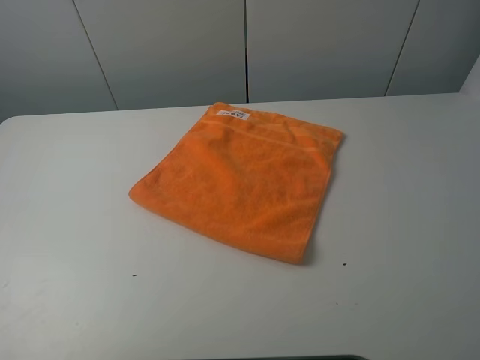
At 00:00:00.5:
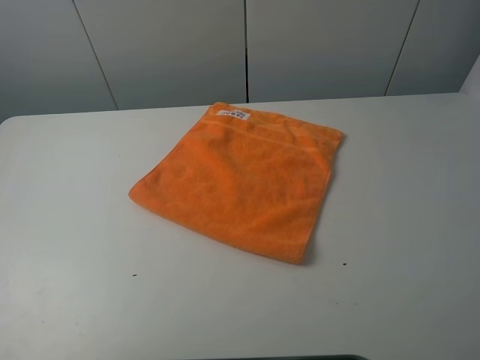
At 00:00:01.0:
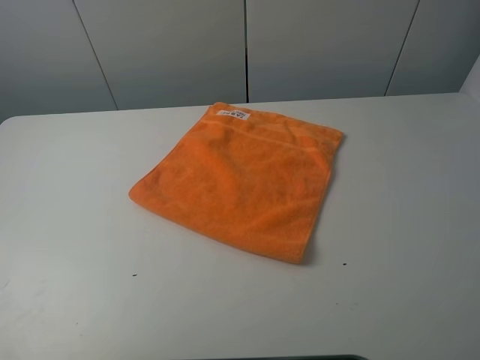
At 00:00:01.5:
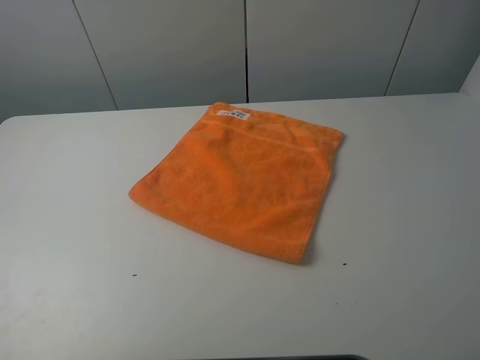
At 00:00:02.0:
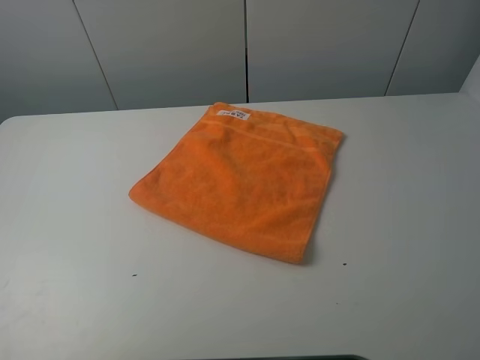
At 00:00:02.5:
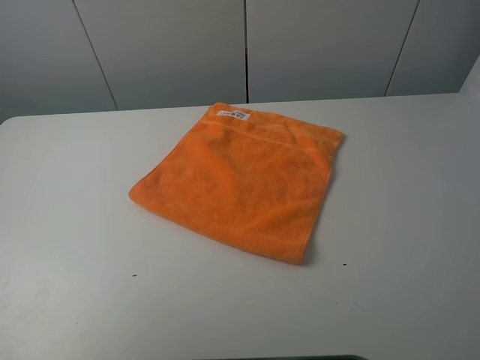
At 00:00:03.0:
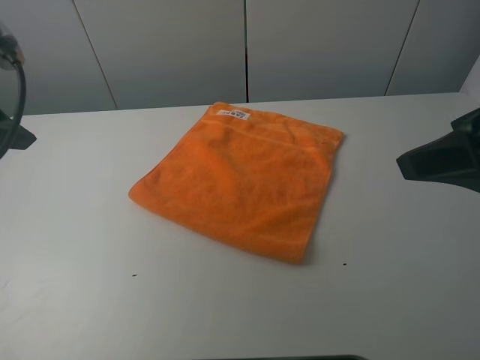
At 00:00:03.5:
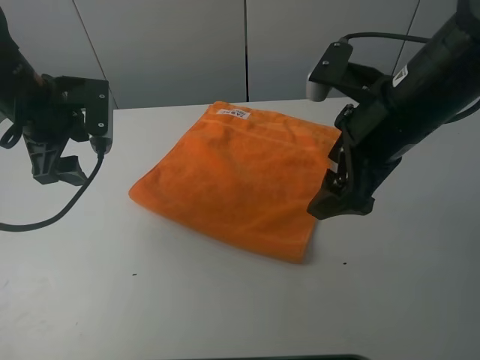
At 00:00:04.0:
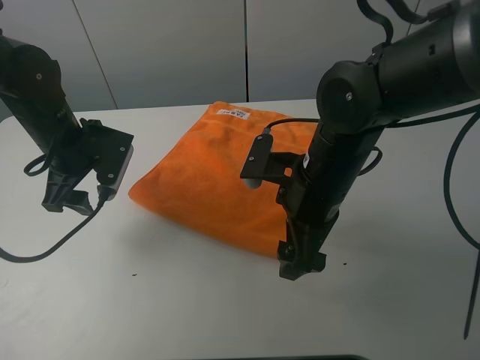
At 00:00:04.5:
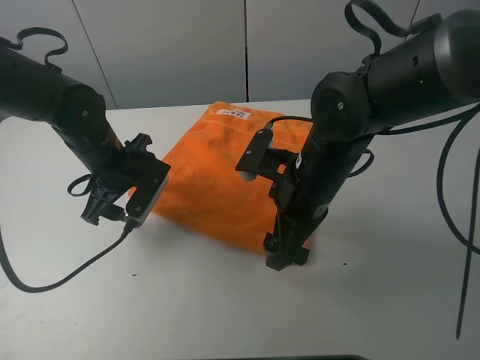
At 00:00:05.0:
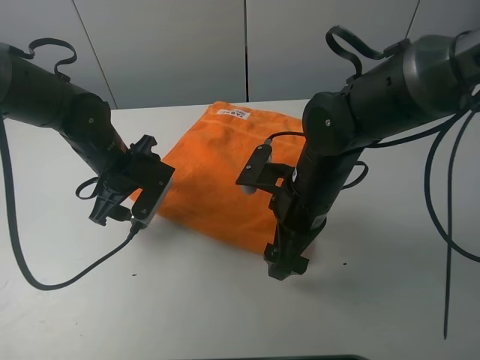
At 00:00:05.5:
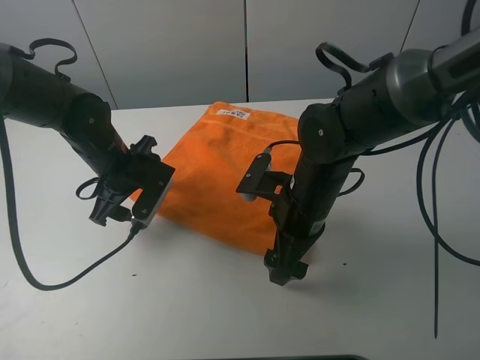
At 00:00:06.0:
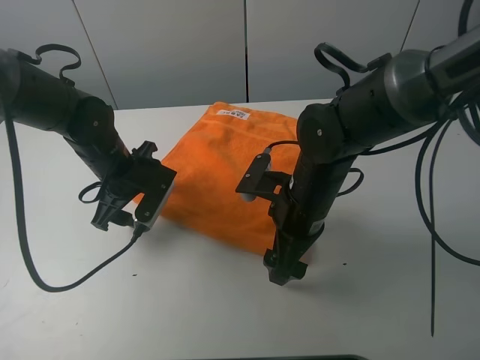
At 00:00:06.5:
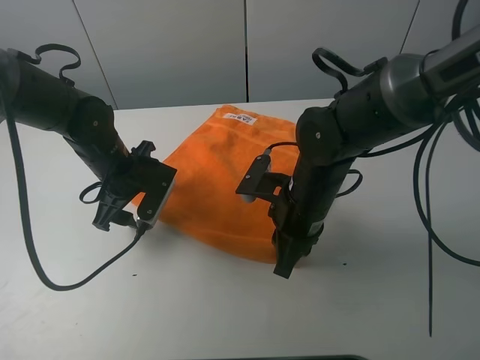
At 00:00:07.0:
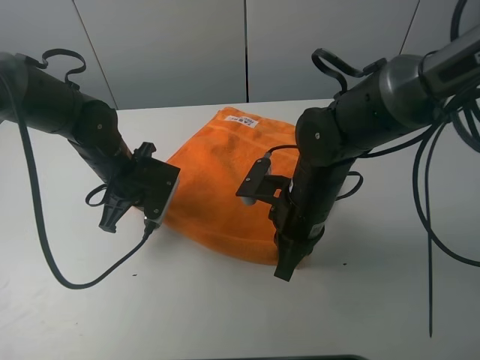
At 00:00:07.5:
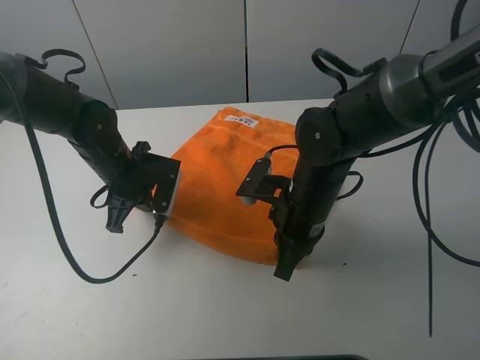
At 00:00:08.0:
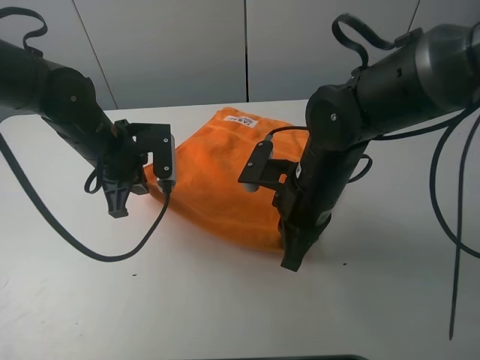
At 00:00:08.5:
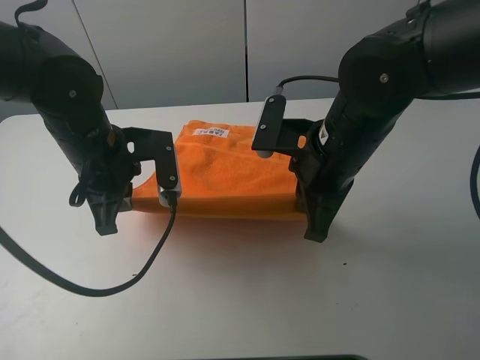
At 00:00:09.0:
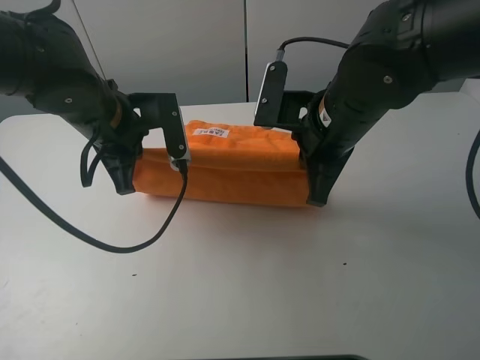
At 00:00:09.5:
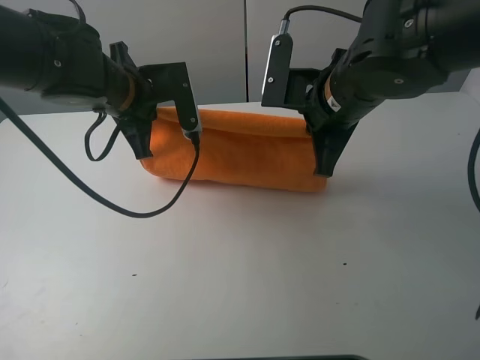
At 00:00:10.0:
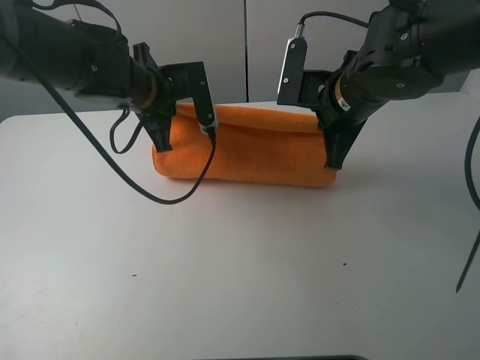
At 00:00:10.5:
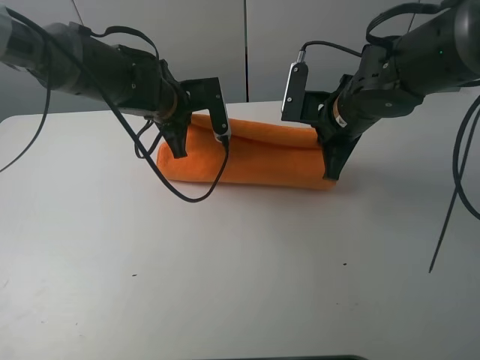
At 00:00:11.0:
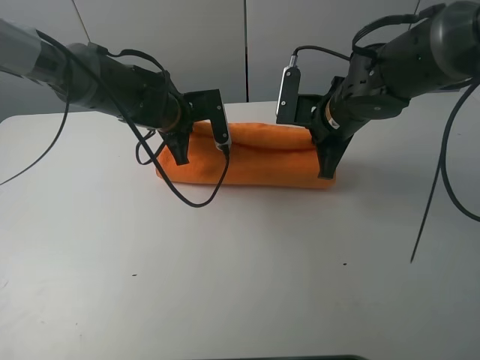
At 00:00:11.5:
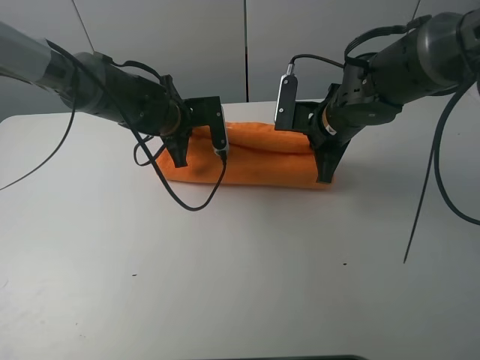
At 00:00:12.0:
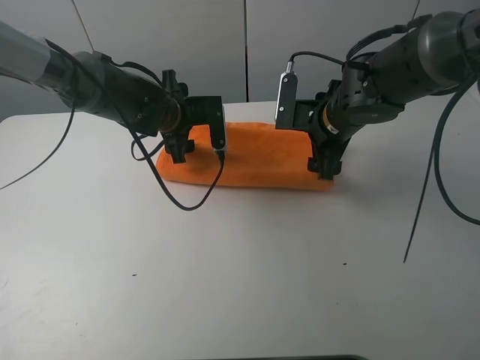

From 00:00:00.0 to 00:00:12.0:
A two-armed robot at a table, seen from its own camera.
Task of the whole recording: fold the towels on the table.
Step, from 00:00:00.0 to 00:00:06.5: Grasp the orange towel with the right gripper.
From 00:00:00.0 to 00:00:02.0: The two grippers keep their place.
From 00:00:02.0 to 00:00:04.0: The right gripper goes approximately 35 cm forward, to the left and downward; the left gripper heads forward and downward, covering about 35 cm.
From 00:00:04.0 to 00:00:06.0: The right gripper moves approximately 5 cm, while the left gripper is displaced downward by about 5 cm.
From 00:00:06.0 to 00:00:08.0: The left gripper closes. The right gripper closes up.
From 00:00:08.0 to 00:00:10.0: The right gripper heads forward and upward, covering about 10 cm, while the left gripper heads to the right and forward, covering some 10 cm.
From 00:00:10.0 to 00:00:12.0: Both grippers move downward, about 5 cm. The left gripper opens, while the right gripper opens its fingers.

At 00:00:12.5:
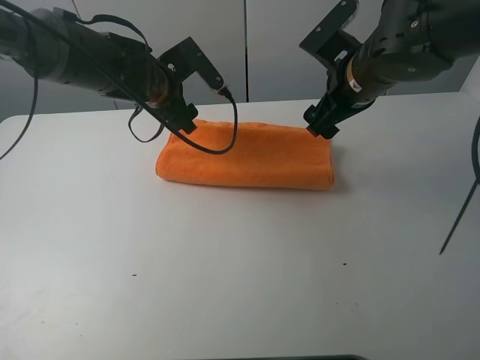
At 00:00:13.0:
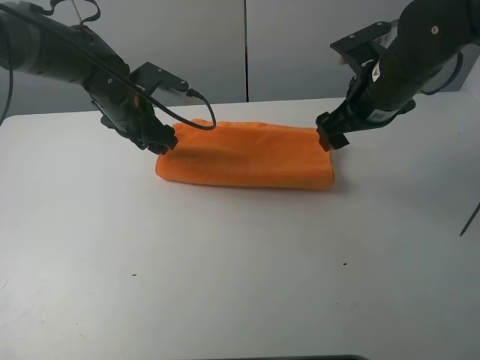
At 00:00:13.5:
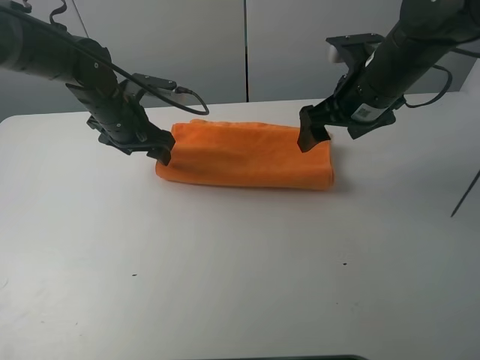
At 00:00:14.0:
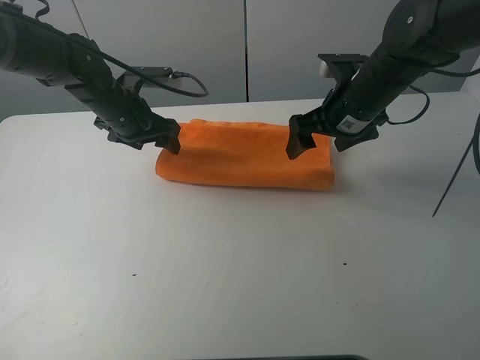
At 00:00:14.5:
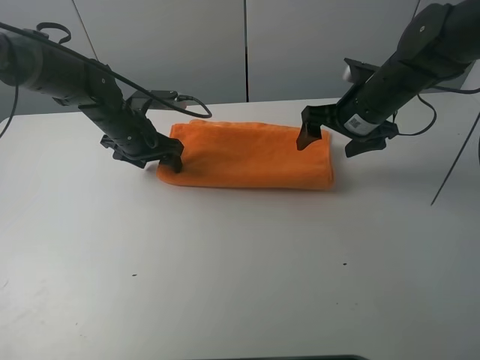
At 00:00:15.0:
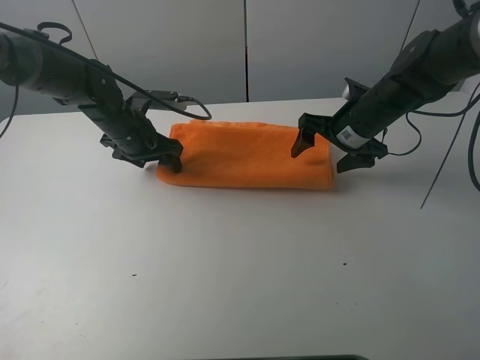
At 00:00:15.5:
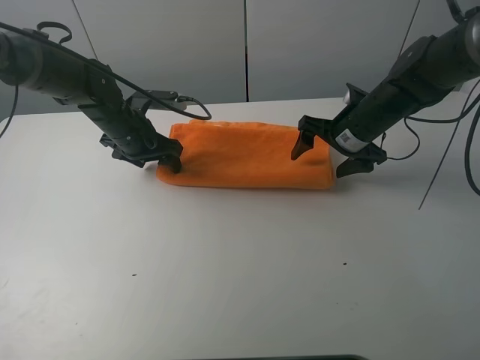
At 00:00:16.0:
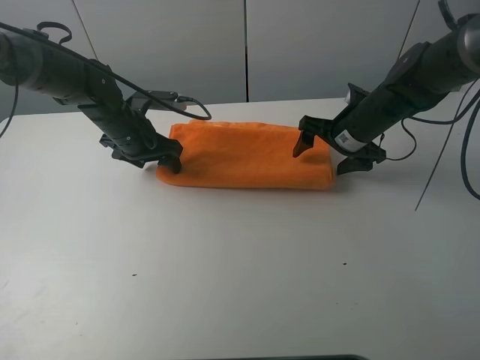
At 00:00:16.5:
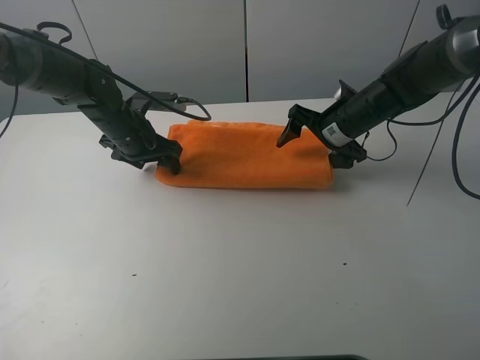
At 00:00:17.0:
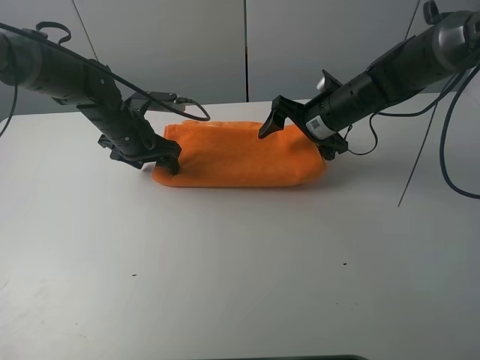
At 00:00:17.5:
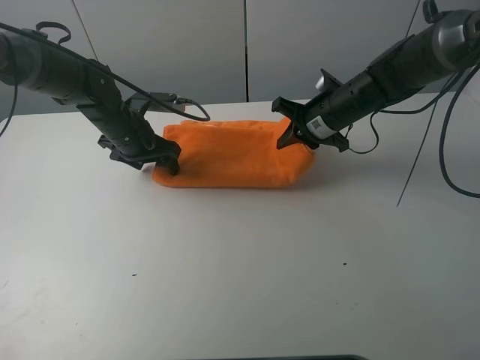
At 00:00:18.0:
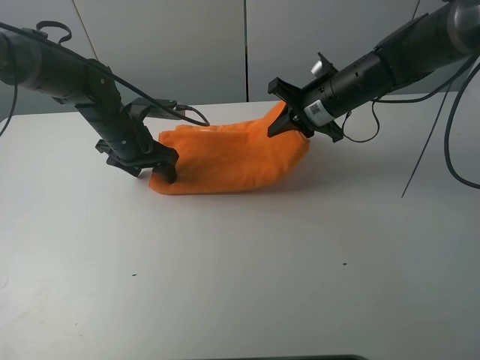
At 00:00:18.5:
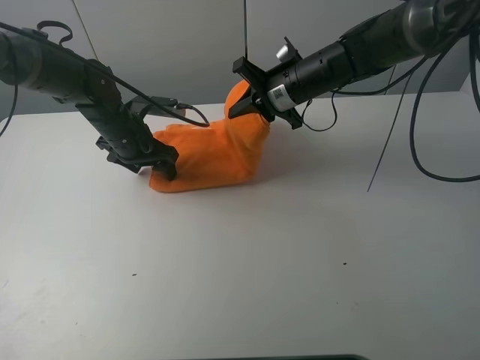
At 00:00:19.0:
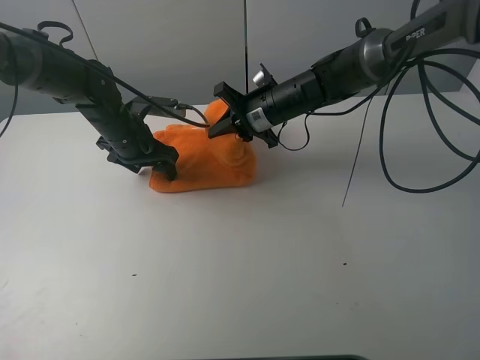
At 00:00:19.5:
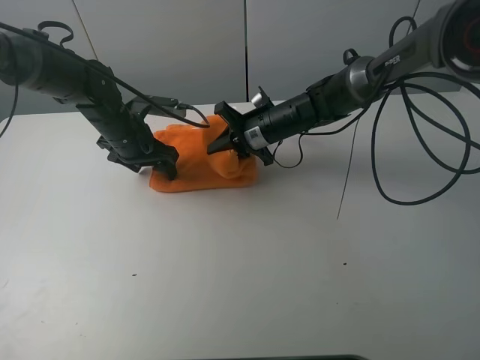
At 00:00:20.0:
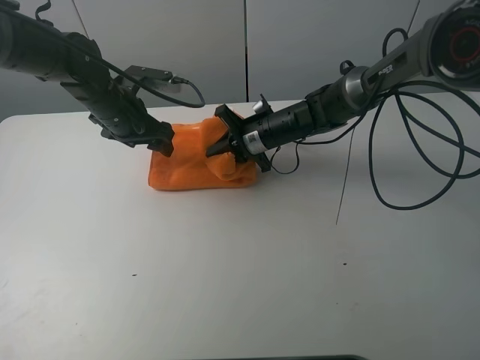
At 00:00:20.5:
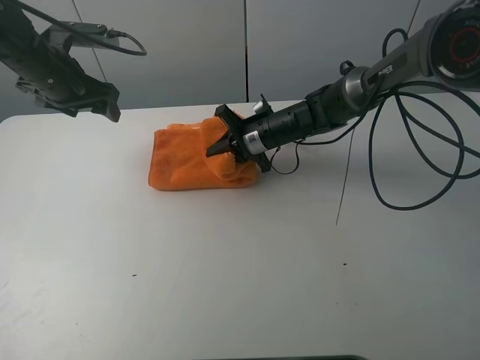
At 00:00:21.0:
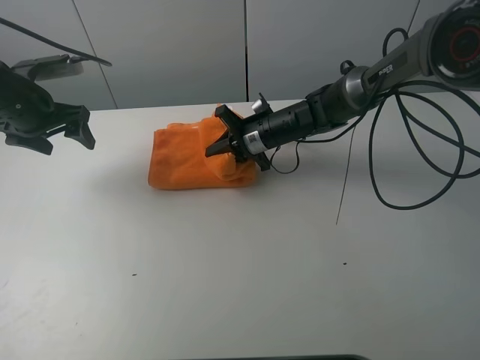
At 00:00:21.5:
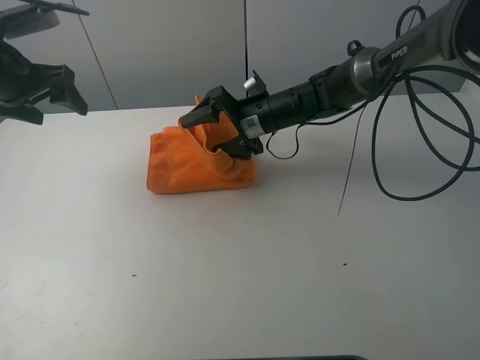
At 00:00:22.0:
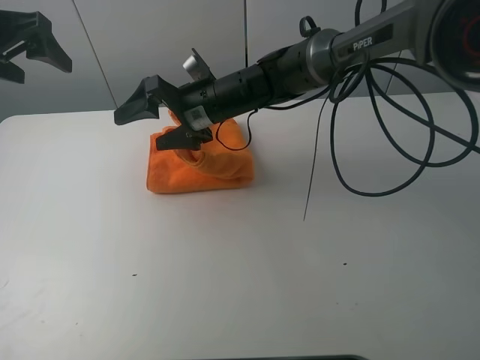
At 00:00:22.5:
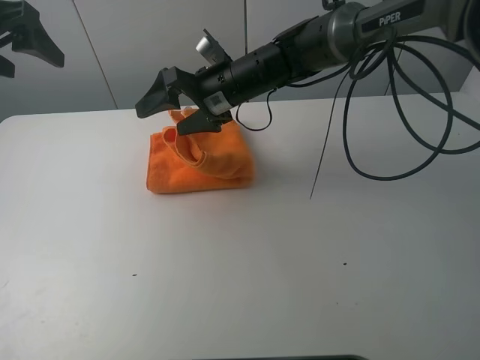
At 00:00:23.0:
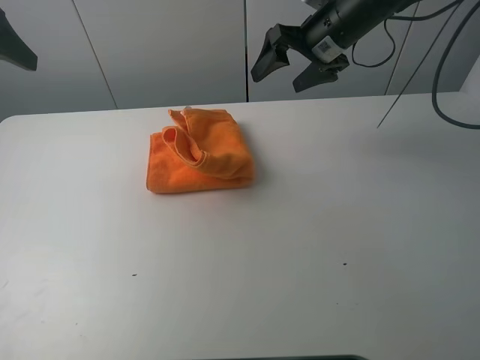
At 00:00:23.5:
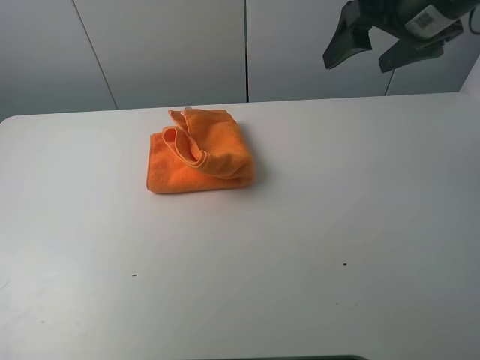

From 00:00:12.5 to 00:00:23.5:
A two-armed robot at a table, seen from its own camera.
Task of the whole recording: fold the towels on the table.
Step, from 00:00:12.5 to 00:00:14.5: Press on the orange towel with the left gripper.
Step, from 00:00:15.0 to 00:00:22.5: Fold the orange towel from right to left with right gripper.
From 00:00:12.5 to 00:00:14.5: The right gripper changes place by roughly 5 cm. Meanwhile the left gripper shifts about 10 cm to the left and downward.
From 00:00:14.5 to 00:00:16.0: The right gripper shifts some 5 cm downward.
From 00:00:16.0 to 00:00:18.0: The right gripper changes place by roughly 5 cm, and closes.
From 00:00:18.0 to 00:00:20.0: The left gripper travels upward by some 5 cm. Meanwhile the right gripper heads downward and to the left, covering some 10 cm.
From 00:00:20.0 to 00:00:21.5: The right gripper opens up, while the left gripper is displaced to the left and upward by about 15 cm.
From 00:00:21.5 to 00:00:23.5: The right gripper travels upward, to the right and backward by about 30 cm; the left gripper is displaced backward and upward by approximately 20 cm.

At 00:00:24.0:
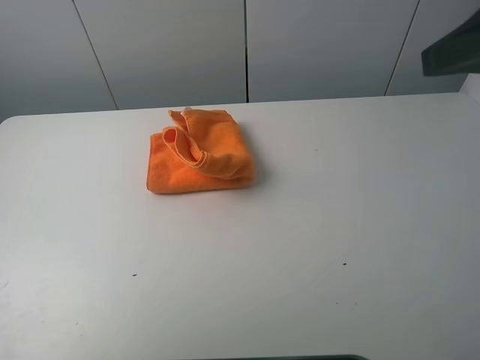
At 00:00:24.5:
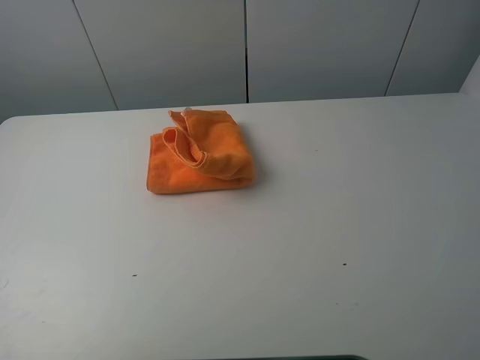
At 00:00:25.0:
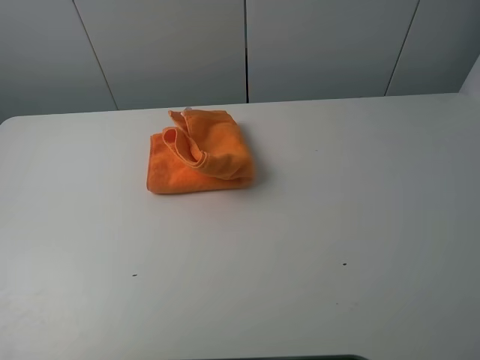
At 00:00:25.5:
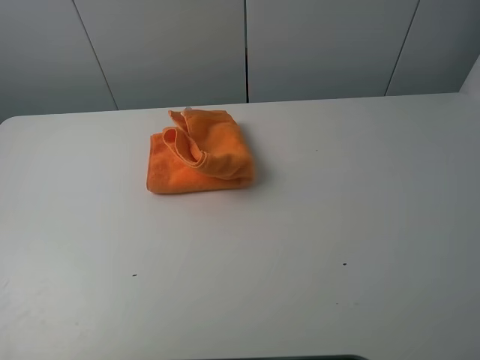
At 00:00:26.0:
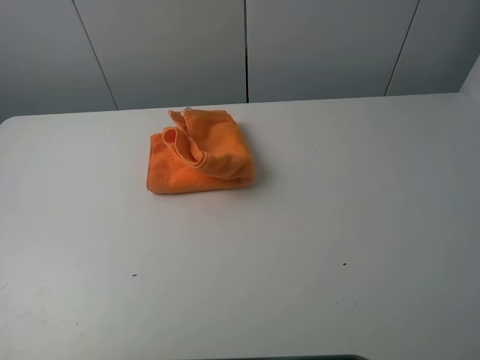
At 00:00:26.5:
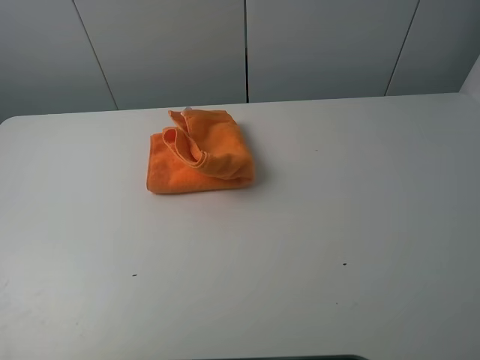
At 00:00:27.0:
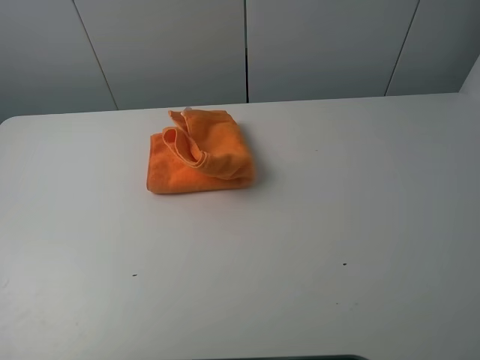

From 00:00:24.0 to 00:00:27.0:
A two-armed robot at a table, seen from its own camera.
Task of the whole recording: fold the towels on the table.
From 00:00:24.0 to 00:00:25.5: The left gripper travels backward and downward by approximately 10 cm. The right gripper heads backward and downward, covering roughly 15 cm.
